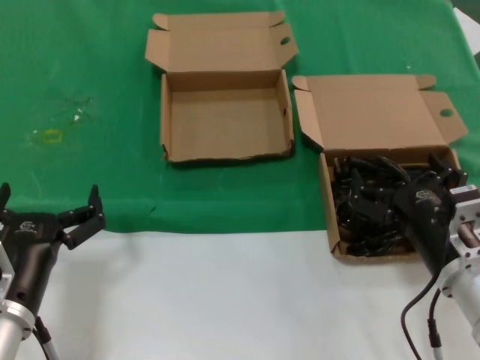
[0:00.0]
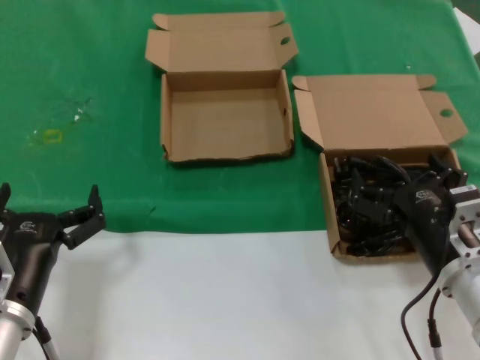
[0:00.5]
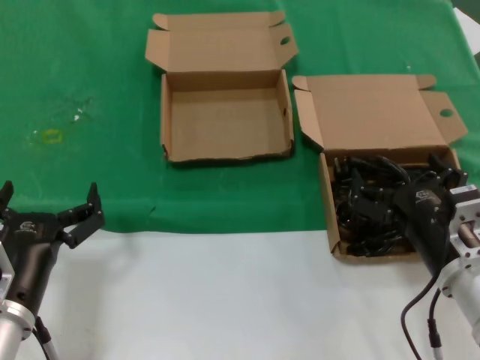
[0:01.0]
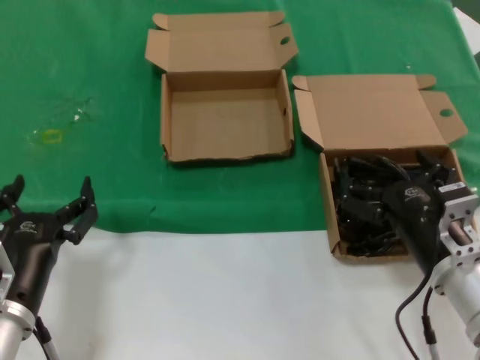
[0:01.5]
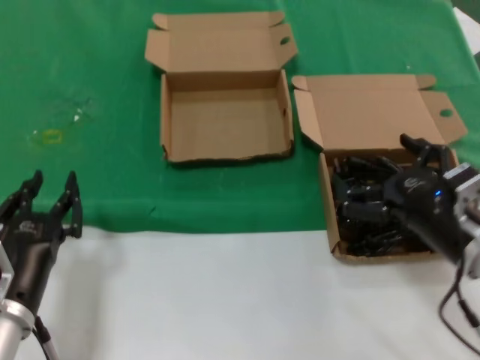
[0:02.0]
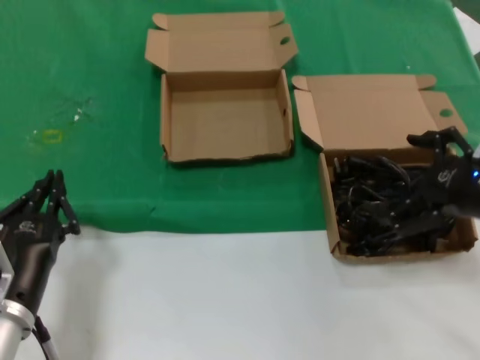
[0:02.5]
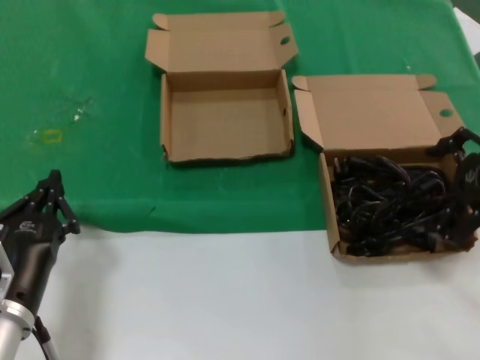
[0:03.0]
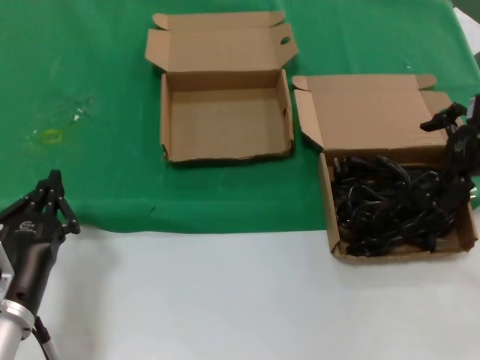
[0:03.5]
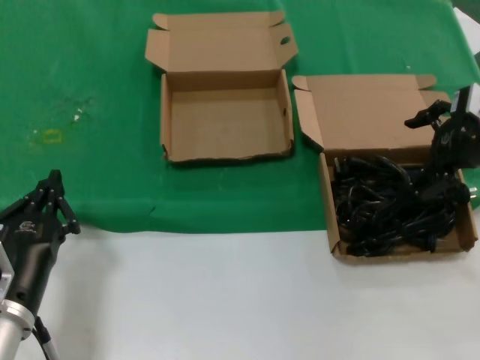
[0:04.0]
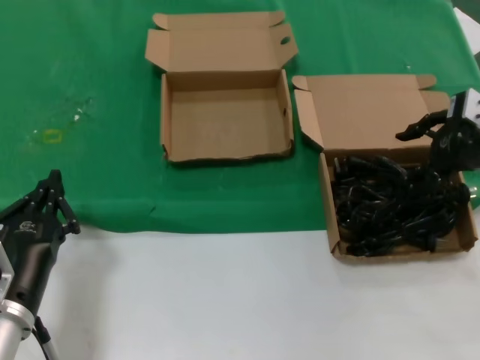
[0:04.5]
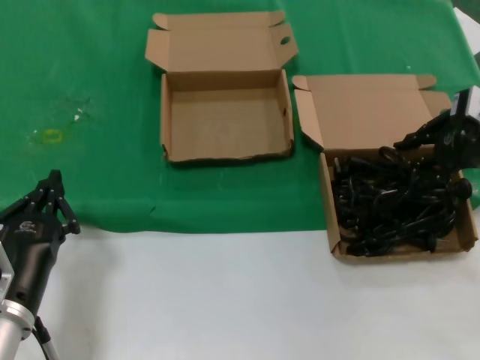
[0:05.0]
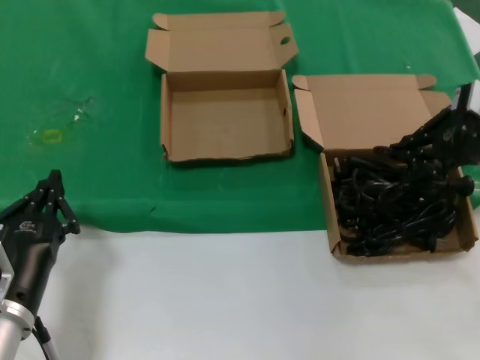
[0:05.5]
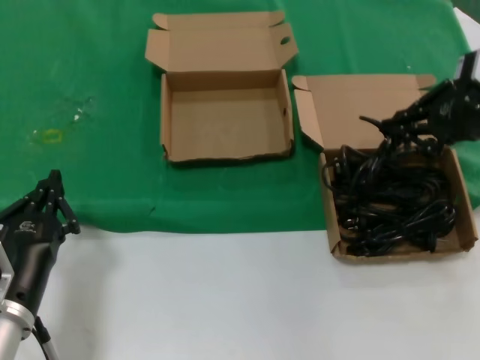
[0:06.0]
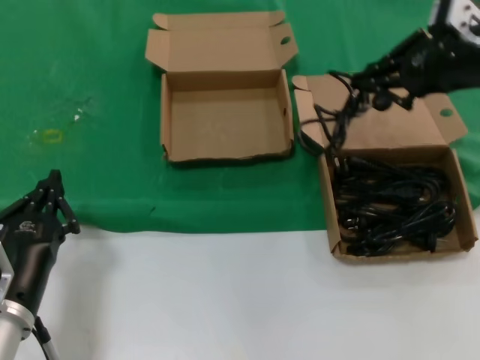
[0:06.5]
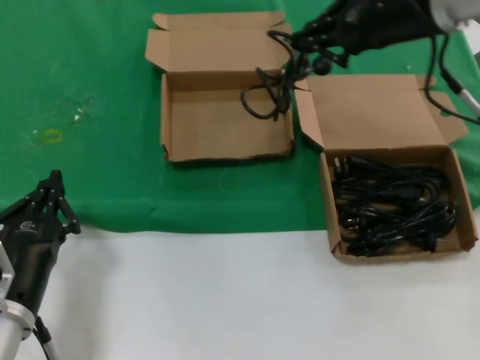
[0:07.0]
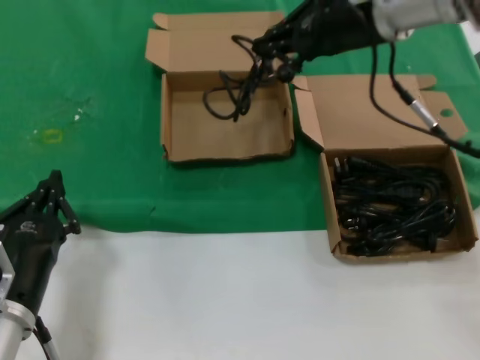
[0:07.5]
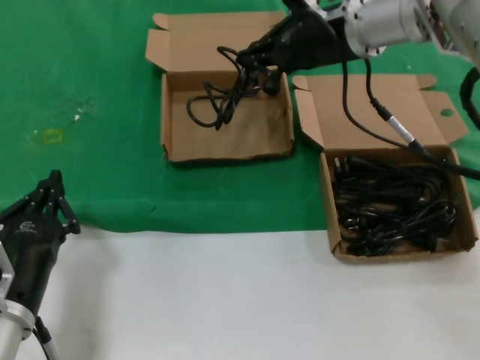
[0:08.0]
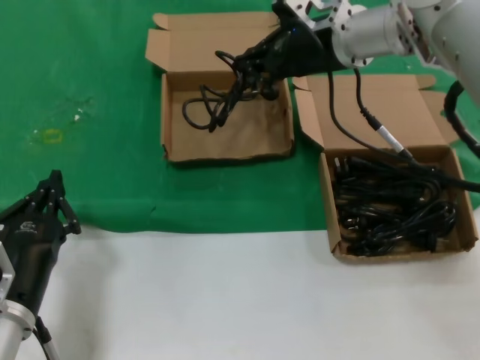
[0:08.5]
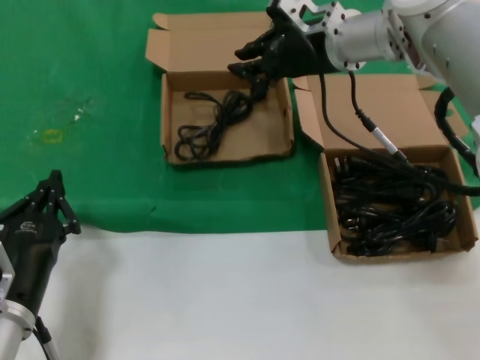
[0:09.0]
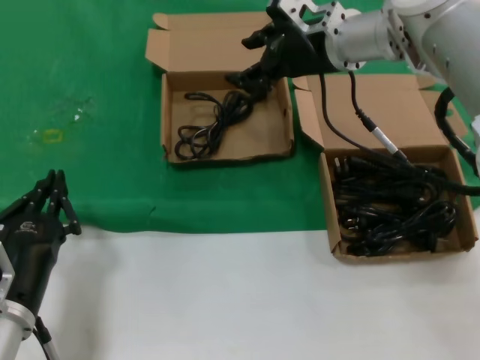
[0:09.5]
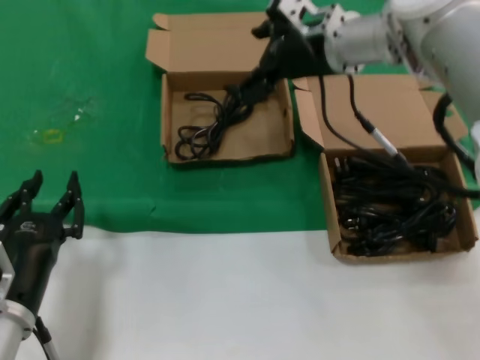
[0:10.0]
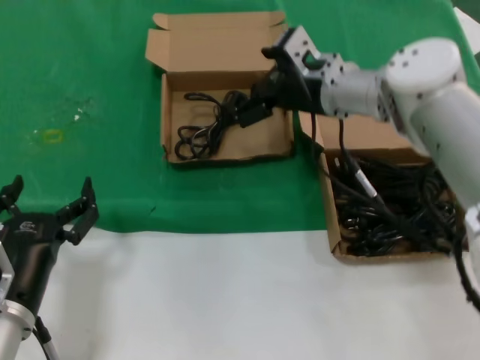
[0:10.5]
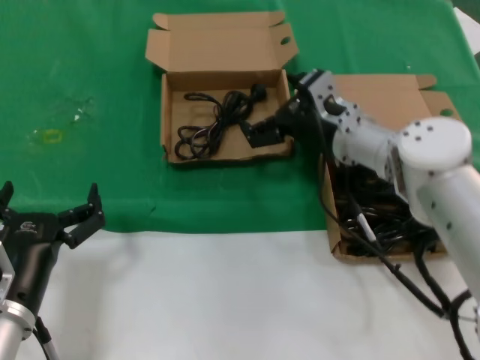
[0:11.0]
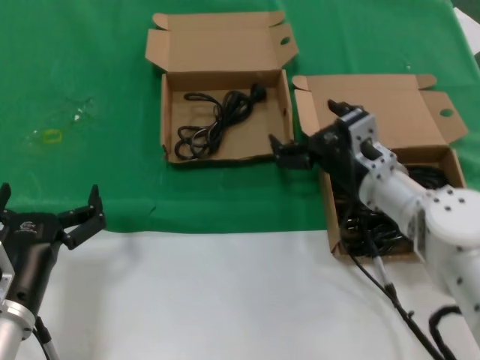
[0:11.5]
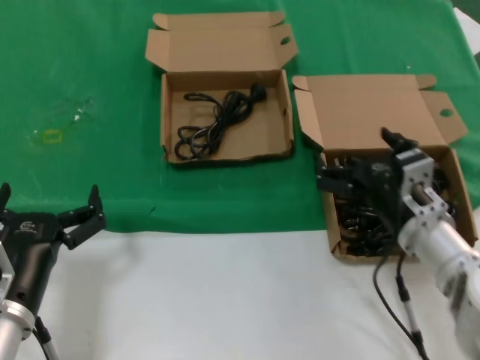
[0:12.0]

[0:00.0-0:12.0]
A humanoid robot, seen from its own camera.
Task of the whole recording: take the parts from the box containing them and put them into an empty box.
Step, 0.0 to 5.0 s: Grasp the data cable.
Step, 6.0 to 8.5 s: Place the data cable in the another box.
0.0 to 2.0 s: The hands stay close to where they were, moving slightly.
2.0 to 4.0 s: The right hand goes some 20 cm forward, upward and to the right.
4.0 to 6.0 s: The right hand changes place by about 5 cm.
6.0 to 8.0 s: The right hand goes roughly 20 cm to the left and forward.
8.0 to 10.0 s: The hands stay close to where they were, moving slightly.
10.0 to 12.0 s: The right hand heads downward and backward, covering some 30 cm.

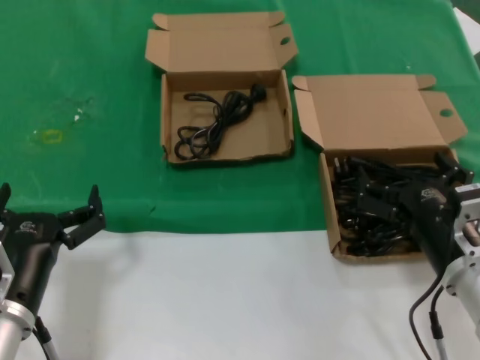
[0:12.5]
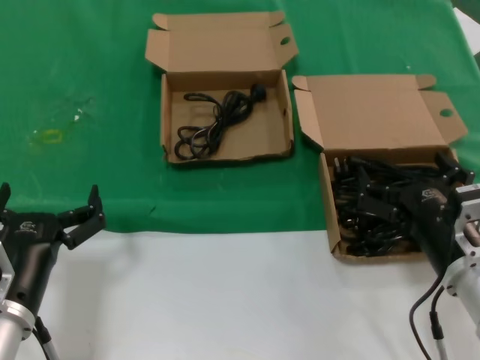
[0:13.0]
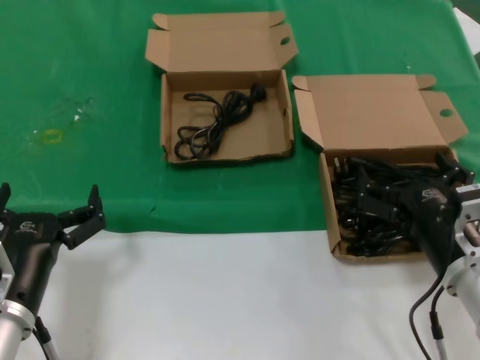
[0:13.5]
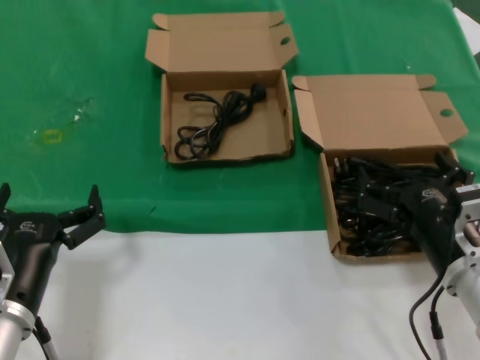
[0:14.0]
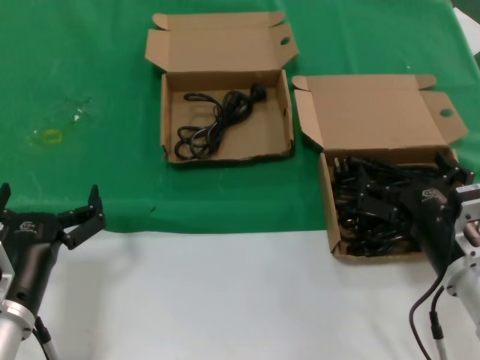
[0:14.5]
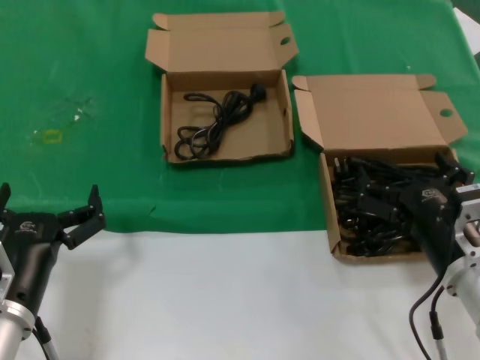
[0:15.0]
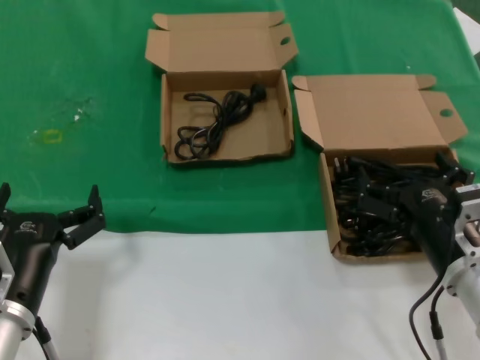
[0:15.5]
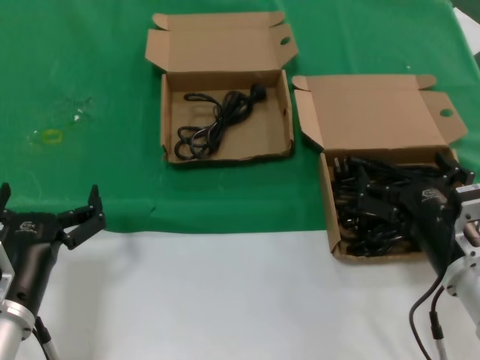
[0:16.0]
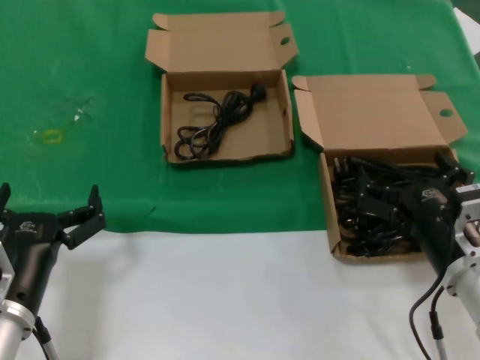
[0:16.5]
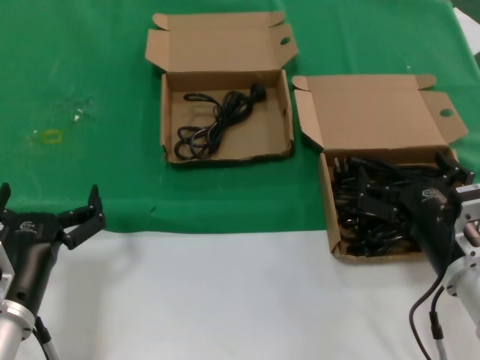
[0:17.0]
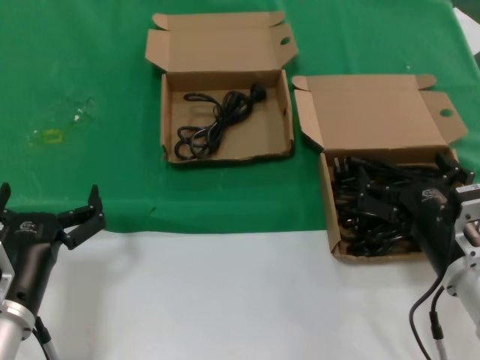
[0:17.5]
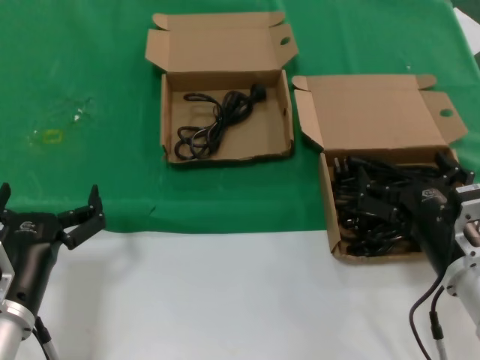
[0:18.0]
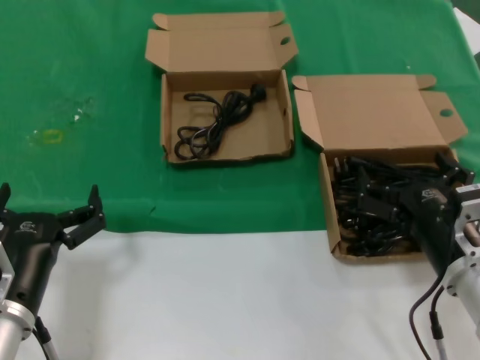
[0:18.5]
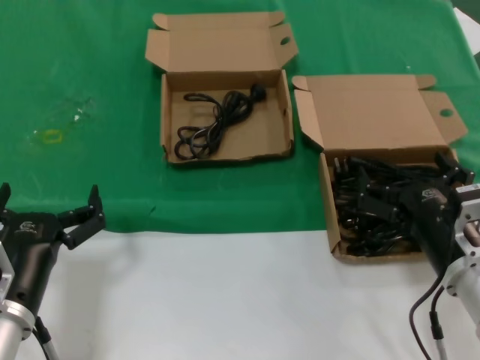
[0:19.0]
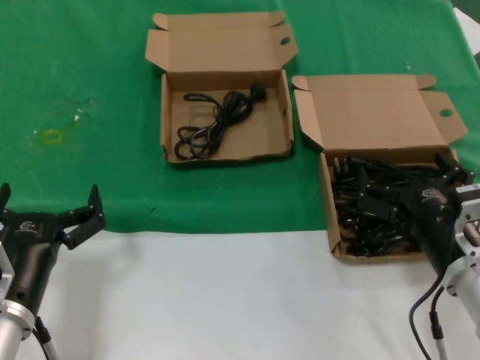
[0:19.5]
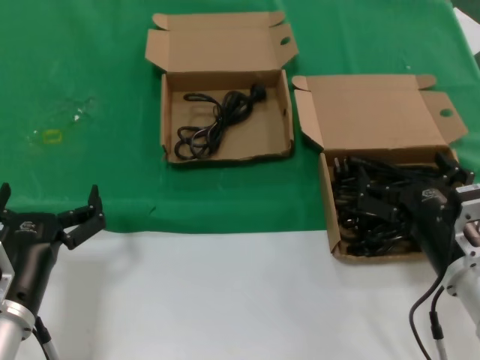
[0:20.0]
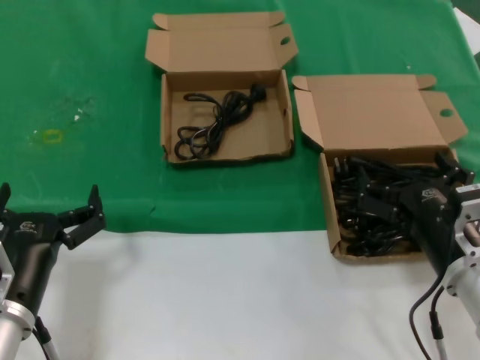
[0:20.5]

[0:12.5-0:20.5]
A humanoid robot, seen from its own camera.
Task of the whole recording: take the parts from the box containing them and put them into an empty box.
12.5 to 20.5 s: Both hands stay about where they are.

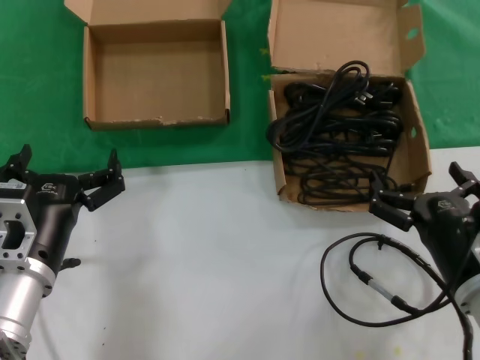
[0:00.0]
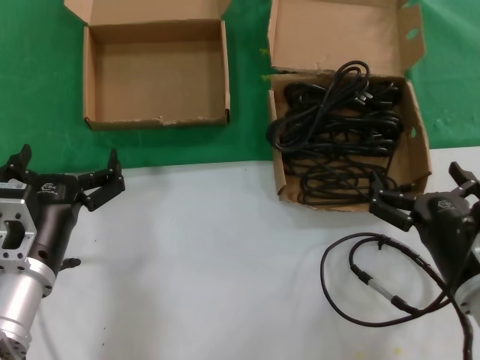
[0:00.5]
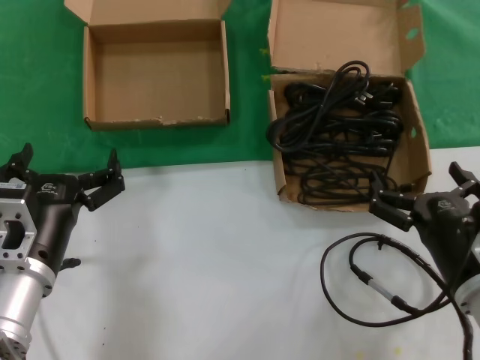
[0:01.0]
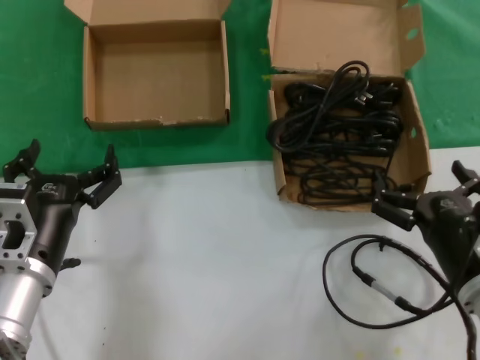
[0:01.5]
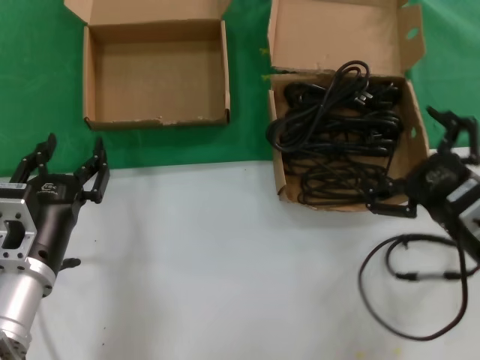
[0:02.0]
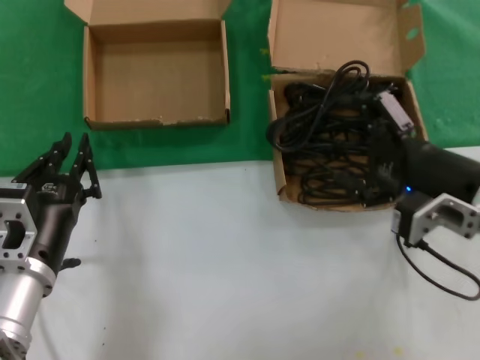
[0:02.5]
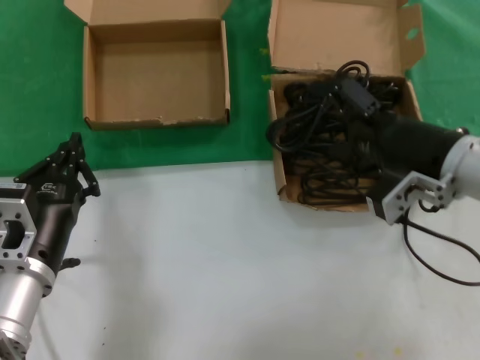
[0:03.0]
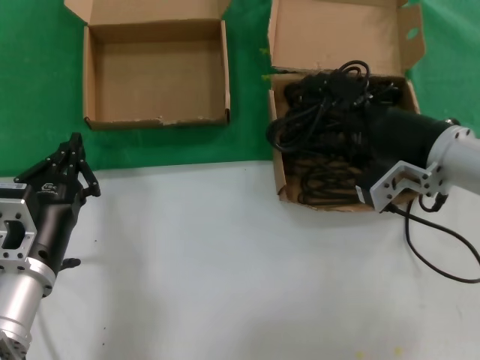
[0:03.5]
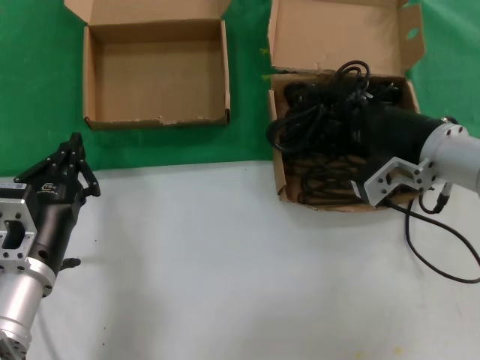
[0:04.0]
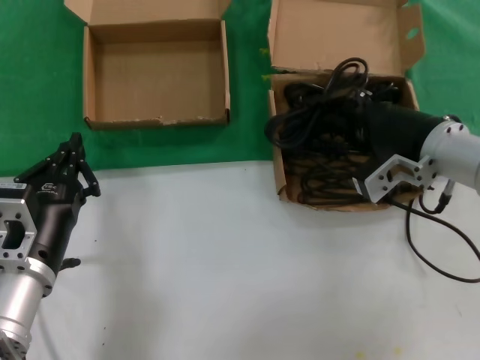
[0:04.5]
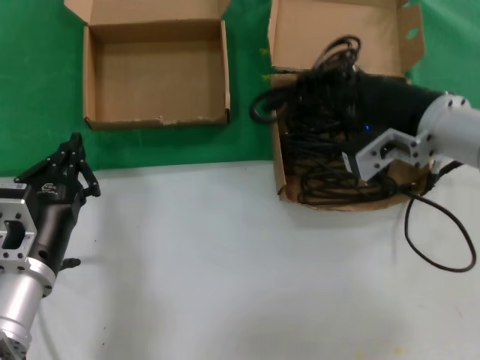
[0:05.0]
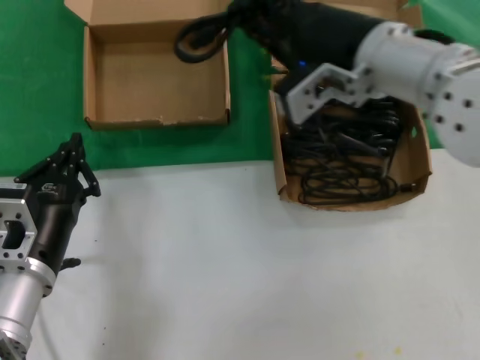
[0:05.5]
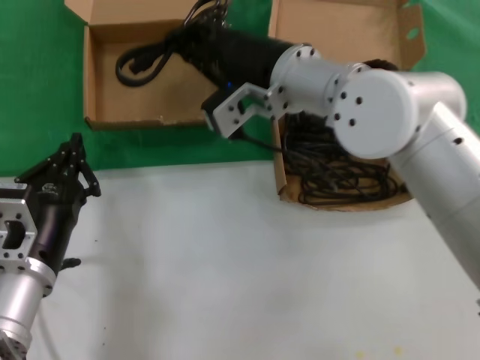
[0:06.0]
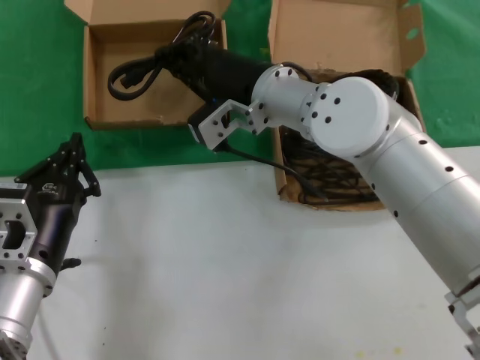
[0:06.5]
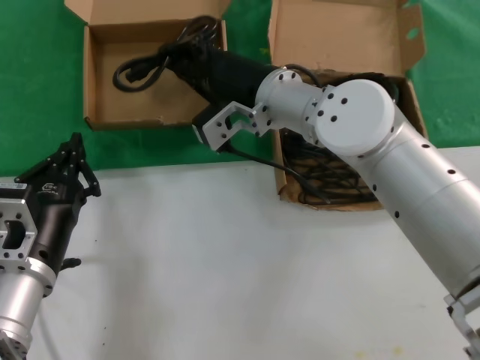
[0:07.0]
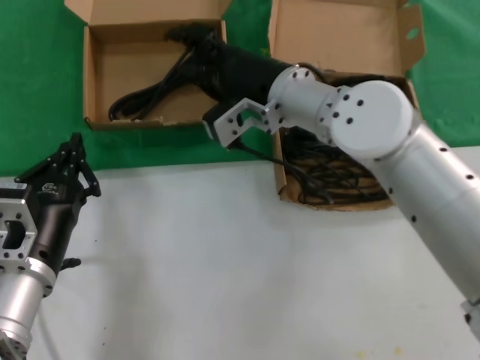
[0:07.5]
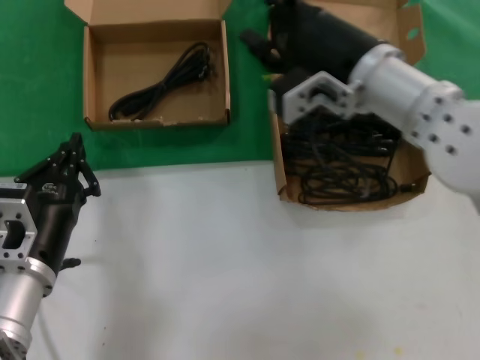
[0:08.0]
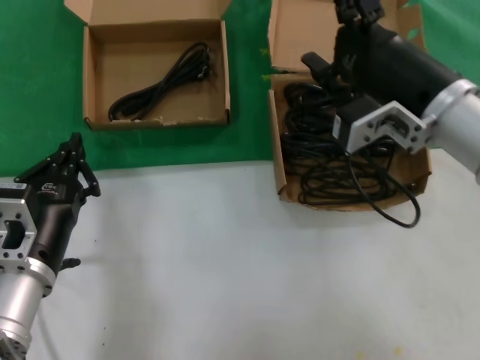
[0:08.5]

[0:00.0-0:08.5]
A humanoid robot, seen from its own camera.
Task of the whole recording: take the parts from the box containing them and put them into an empty box.
Step, 0.0 to 4.0 s: Grasp the data cable.
Step, 5.0 to 7.0 s: Place the data cable in the another box.
0.0 to 2.0 s: The right hand shifts about 5 cm upward.
2.0 to 4.0 s: The right hand is displaced forward and upward by approximately 15 cm.
4.0 to 6.5 s: The right hand is displaced to the left by approximately 20 cm.
6.5 to 8.5 s: The right hand heads to the right and backward, covering some 20 cm.
